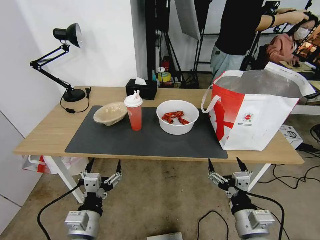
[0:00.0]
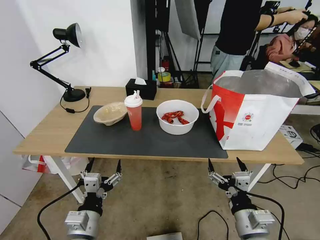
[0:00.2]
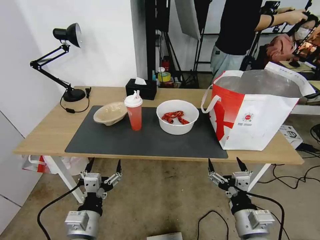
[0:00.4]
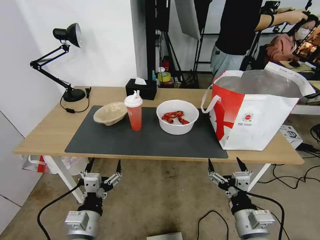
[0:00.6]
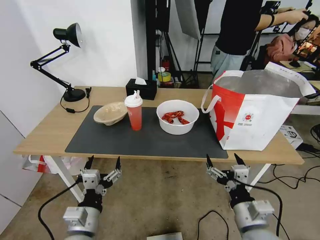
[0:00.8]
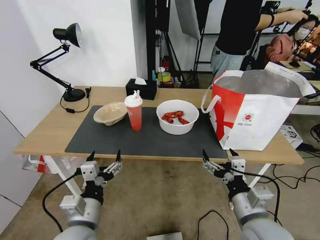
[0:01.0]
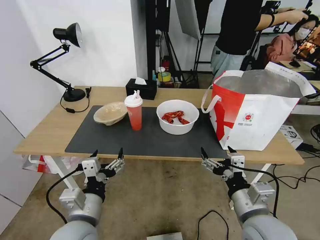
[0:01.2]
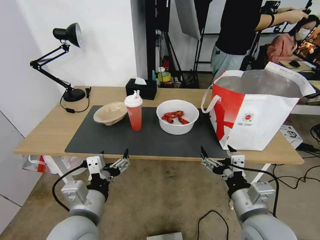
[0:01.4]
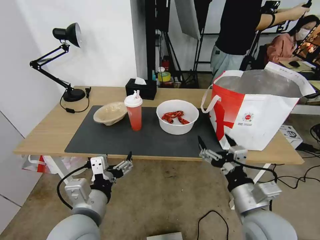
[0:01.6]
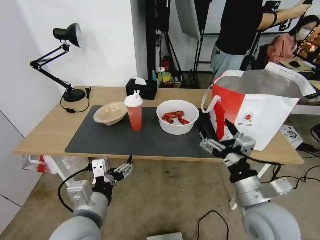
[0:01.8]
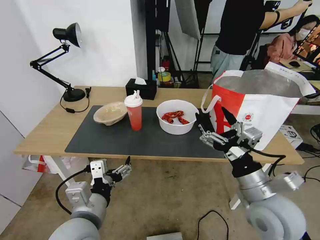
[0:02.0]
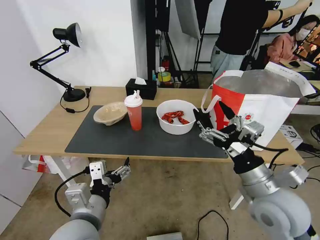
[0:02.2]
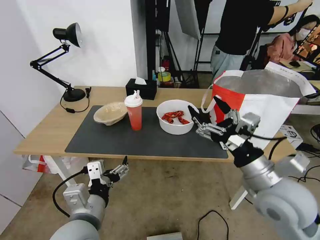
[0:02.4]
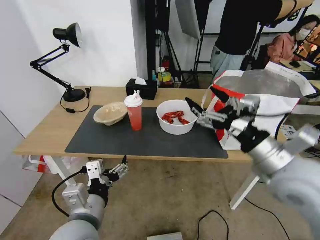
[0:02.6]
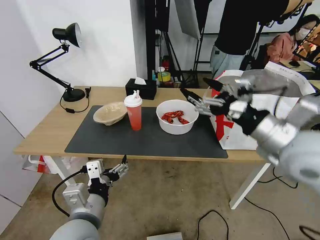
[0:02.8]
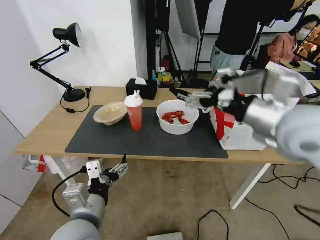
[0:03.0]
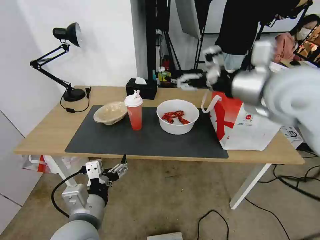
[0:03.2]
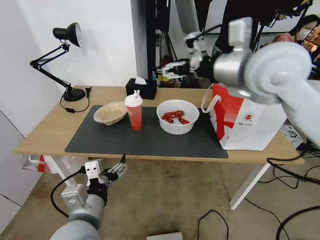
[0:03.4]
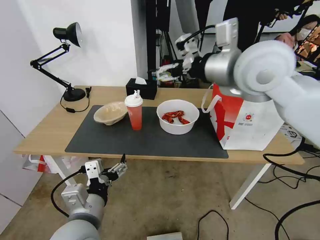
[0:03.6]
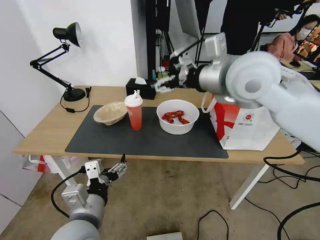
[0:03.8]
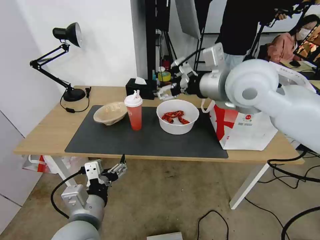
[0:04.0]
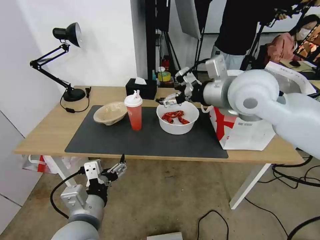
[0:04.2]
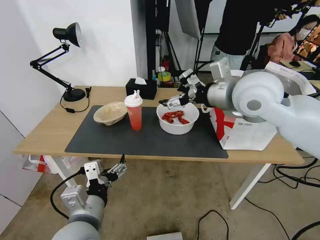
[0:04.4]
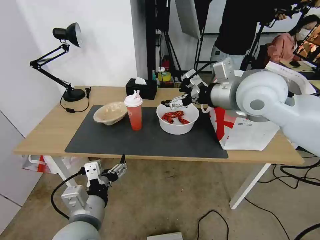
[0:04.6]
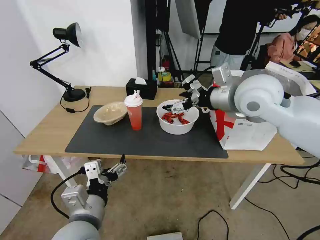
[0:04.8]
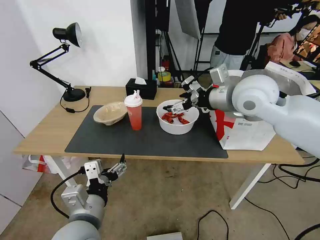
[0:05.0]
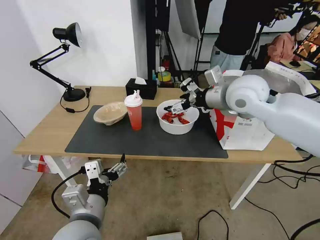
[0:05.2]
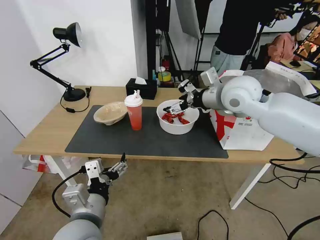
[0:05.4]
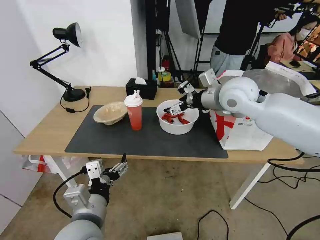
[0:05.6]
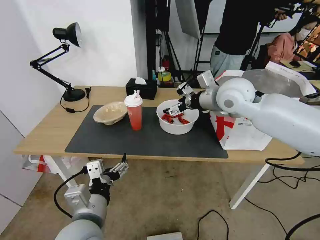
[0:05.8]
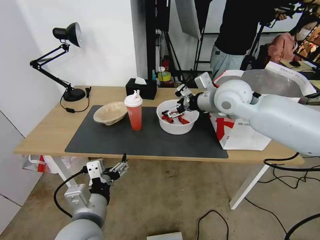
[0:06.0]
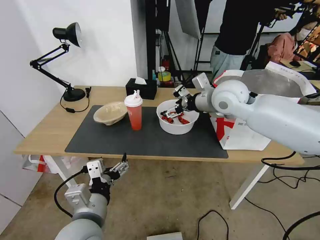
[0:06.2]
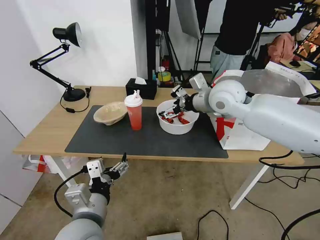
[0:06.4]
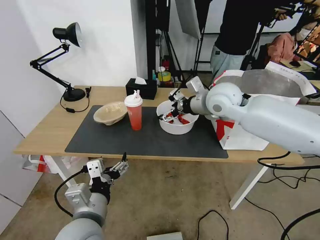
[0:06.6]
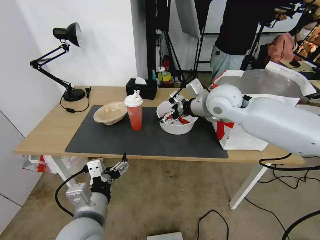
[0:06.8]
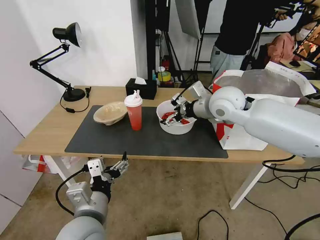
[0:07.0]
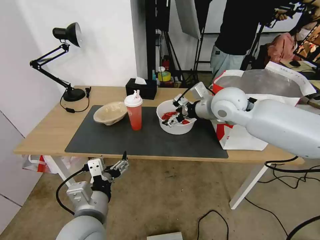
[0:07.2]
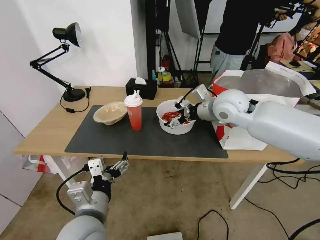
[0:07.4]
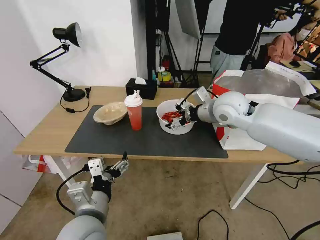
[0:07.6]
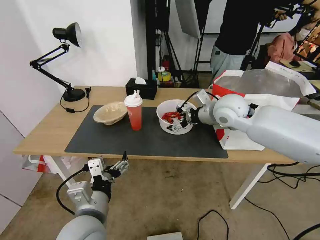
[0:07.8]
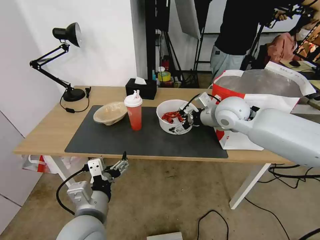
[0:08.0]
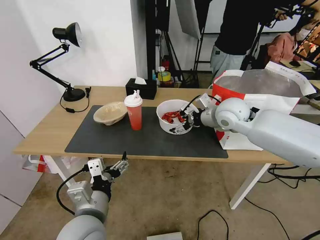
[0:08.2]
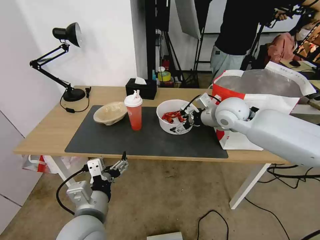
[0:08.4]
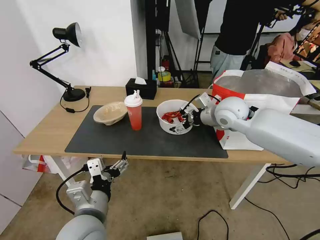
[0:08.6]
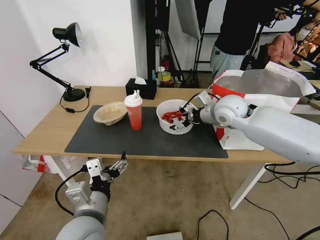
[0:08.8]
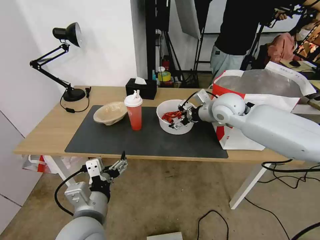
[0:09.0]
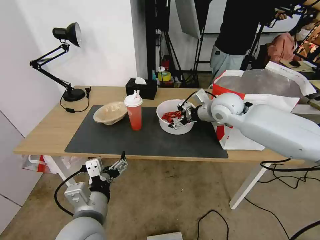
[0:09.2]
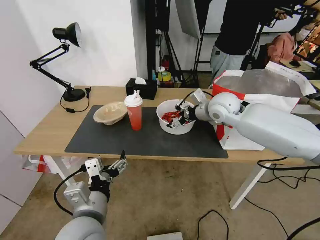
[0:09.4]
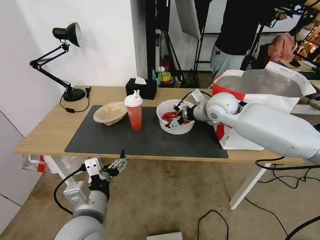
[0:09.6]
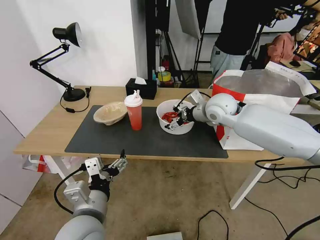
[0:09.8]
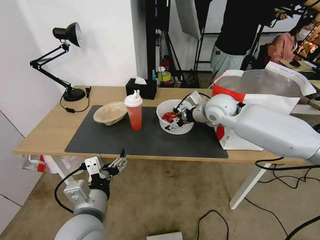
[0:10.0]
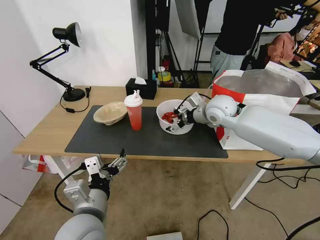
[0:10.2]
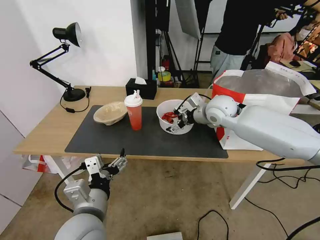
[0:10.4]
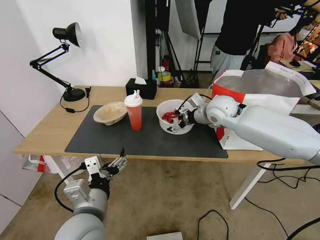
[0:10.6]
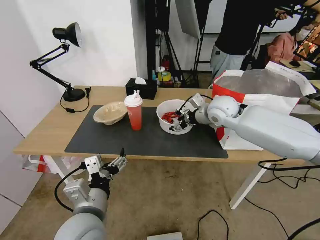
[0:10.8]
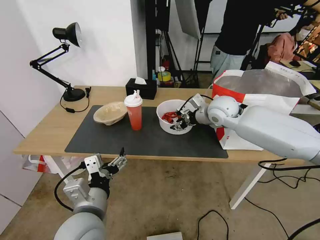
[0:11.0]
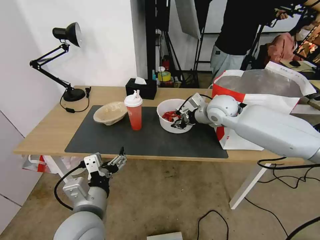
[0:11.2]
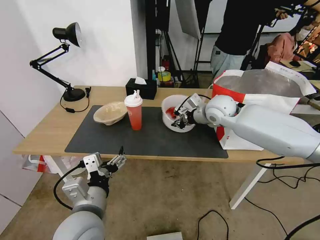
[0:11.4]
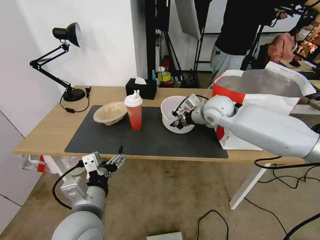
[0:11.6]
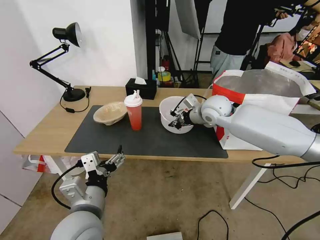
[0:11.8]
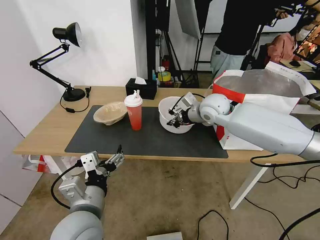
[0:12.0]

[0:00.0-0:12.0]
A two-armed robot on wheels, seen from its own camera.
Task of the whole recording: Pick up the trash from the table and place it into the takeout bag.
0:01.6 to 0:03.0: The right gripper travels upward and forward by about 25 cm.
0:03.0 to 0:04.4: The right gripper travels forward and to the left by roughly 10 cm.
0:04.4 to 0:06.0: The right gripper shifts some 10 cm forward and downward.
0:06.0 to 0:07.6: The grippers make only small movements.
0:07.6 to 0:10.4: The grippers move only a little.
0:10.4 to 0:12.0: The right gripper closes up.

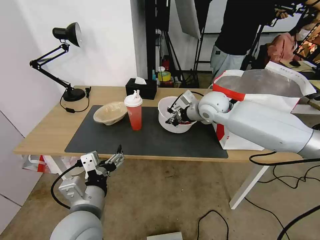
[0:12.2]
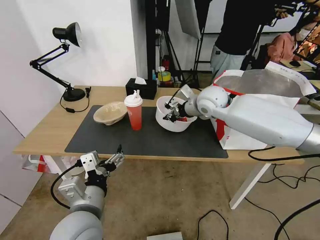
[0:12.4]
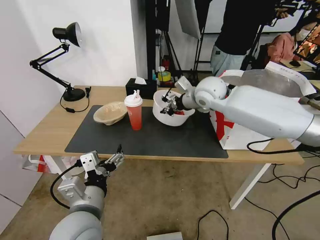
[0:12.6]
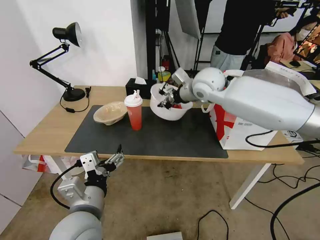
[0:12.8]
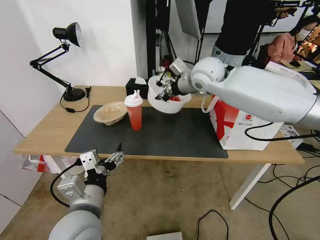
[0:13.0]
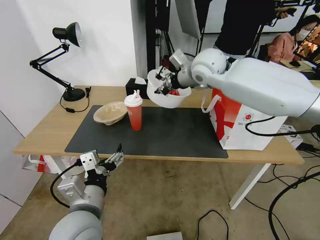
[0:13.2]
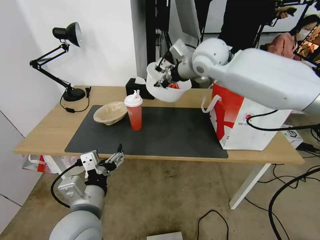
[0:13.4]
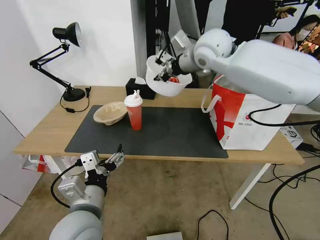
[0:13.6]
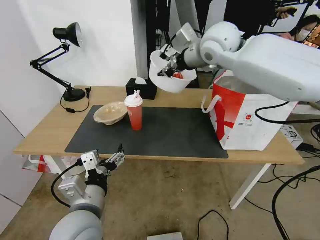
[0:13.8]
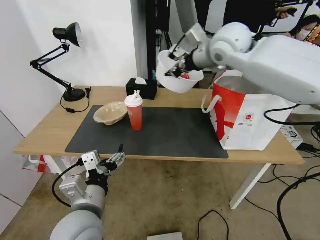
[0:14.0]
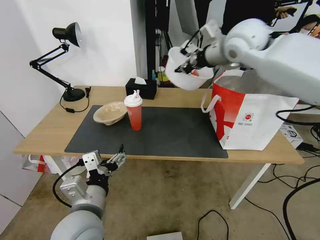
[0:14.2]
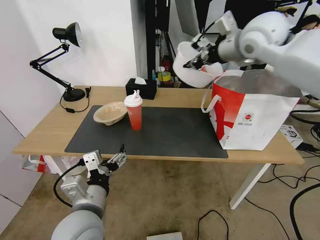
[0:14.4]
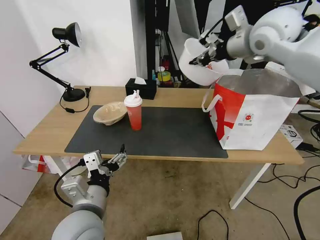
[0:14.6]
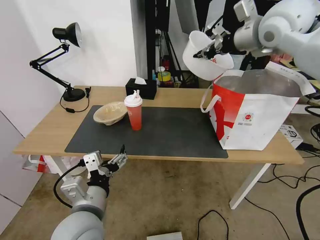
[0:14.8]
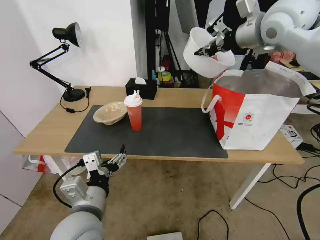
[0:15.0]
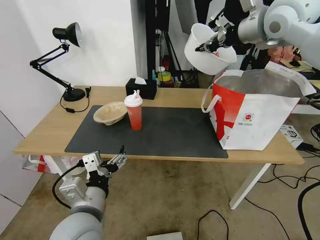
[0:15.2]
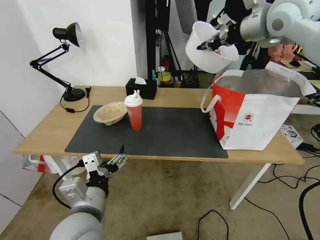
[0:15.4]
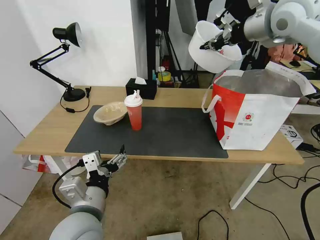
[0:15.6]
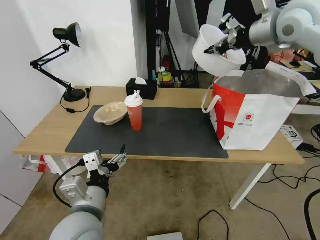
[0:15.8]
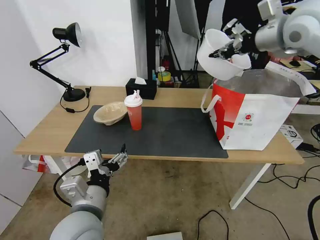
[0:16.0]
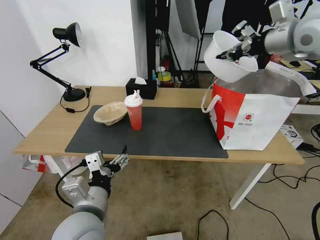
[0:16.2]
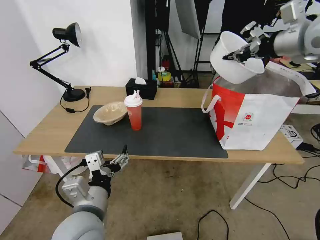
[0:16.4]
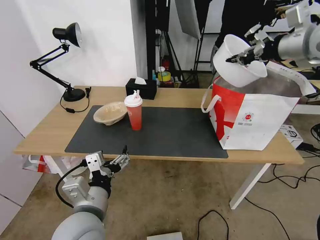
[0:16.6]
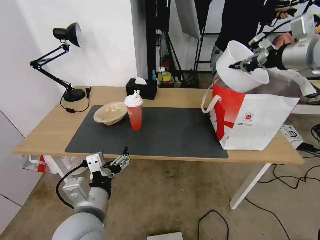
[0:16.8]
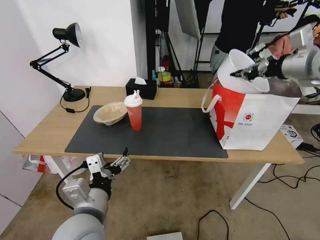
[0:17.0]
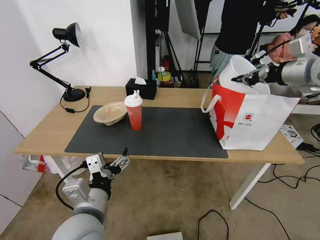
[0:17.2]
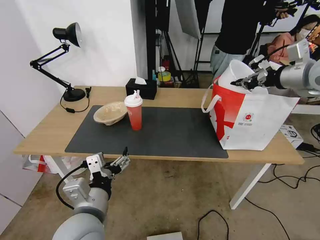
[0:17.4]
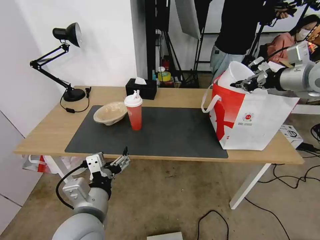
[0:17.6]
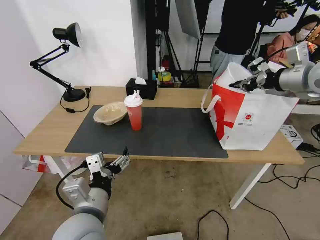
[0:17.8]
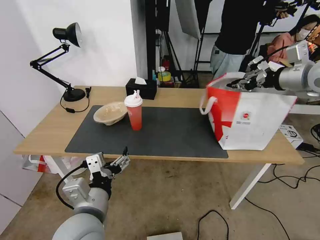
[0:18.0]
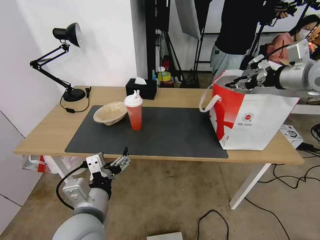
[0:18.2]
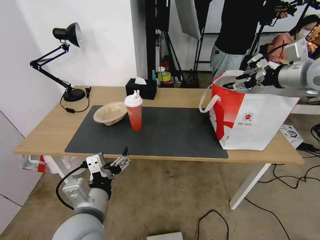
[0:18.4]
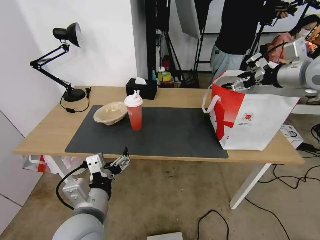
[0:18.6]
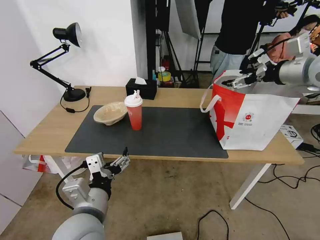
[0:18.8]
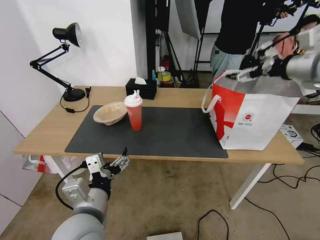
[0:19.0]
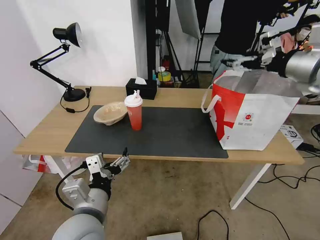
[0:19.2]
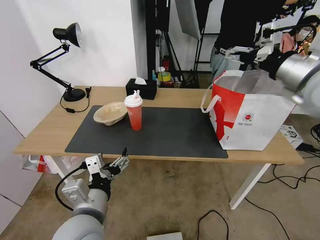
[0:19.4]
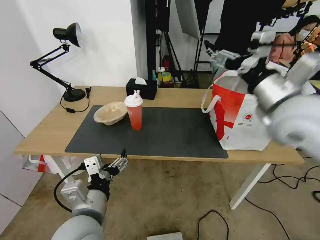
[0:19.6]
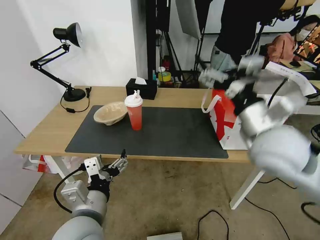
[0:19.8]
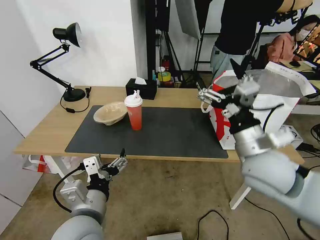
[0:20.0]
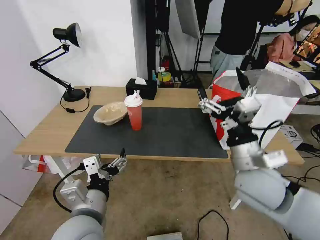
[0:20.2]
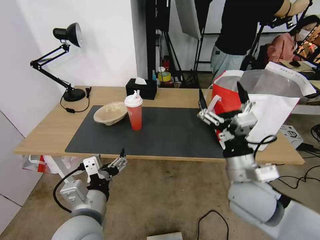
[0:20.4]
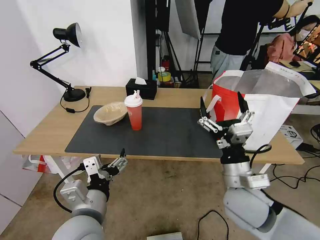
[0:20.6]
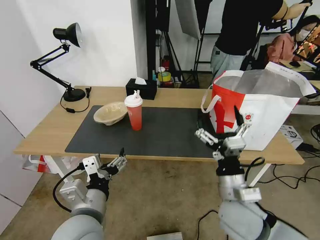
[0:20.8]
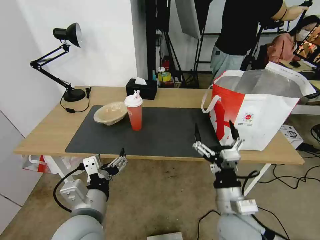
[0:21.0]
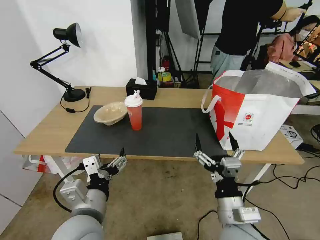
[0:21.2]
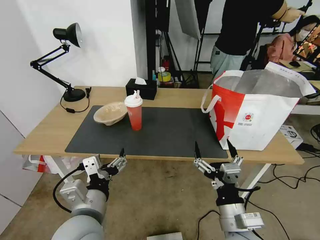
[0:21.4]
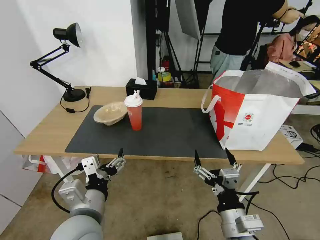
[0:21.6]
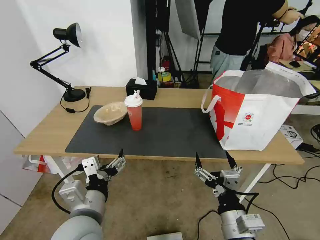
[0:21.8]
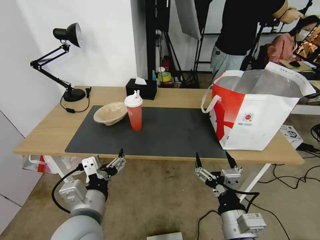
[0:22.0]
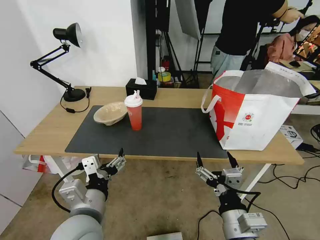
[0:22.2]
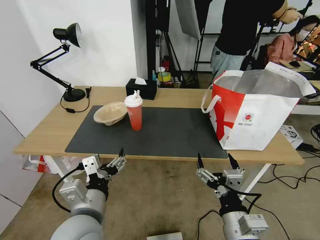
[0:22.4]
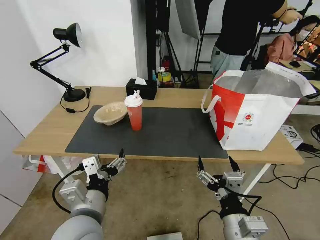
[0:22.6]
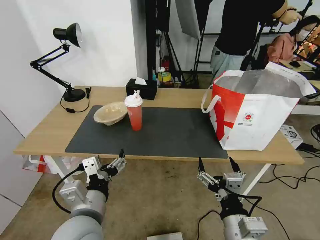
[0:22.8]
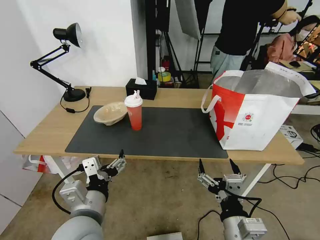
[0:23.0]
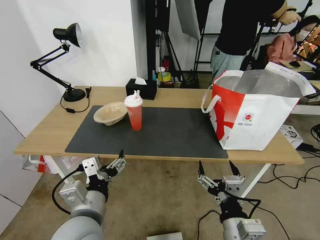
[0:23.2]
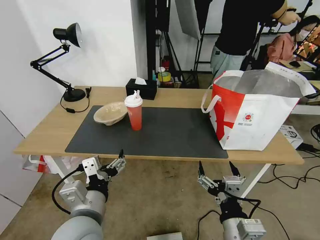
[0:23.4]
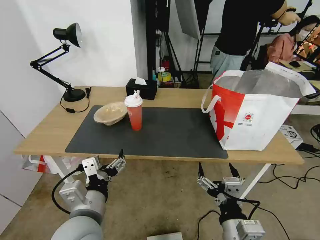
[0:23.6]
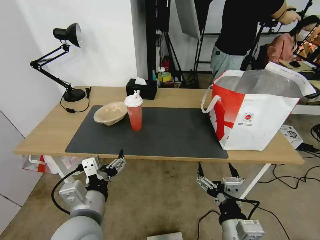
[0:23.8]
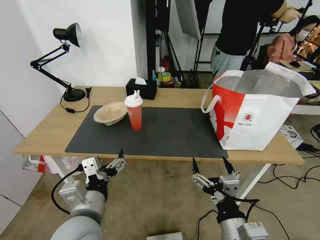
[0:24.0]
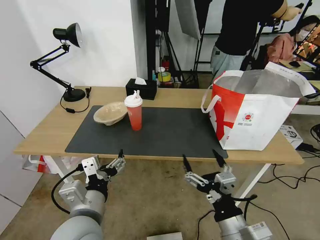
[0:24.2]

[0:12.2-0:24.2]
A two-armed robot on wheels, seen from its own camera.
Task of the whole recording: Pick up the trash from the table and place it into the takeout bag.
0:12.2 to 0:13.8: The right gripper shifts about 20 cm upward.
0:13.8 to 0:15.2: The right gripper travels to the right and upward by approximately 15 cm.
0:15.2 to 0:16.6: The right gripper shifts about 10 cm to the right.
0:16.6 to 0:18.2: The right gripper is displaced downward by some 5 cm, and opens its fingers.
0:18.2 to 0:19.8: The right gripper goes roughly 25 cm to the left, backward and downward, and opens up.
0:19.8 to 0:21.2: The right gripper travels downward and backward by some 25 cm.
0:21.2 to 0:22.6: There are only small adjustments of the grippers.
0:22.6 to 0:24.2: The grippers move only a little.
